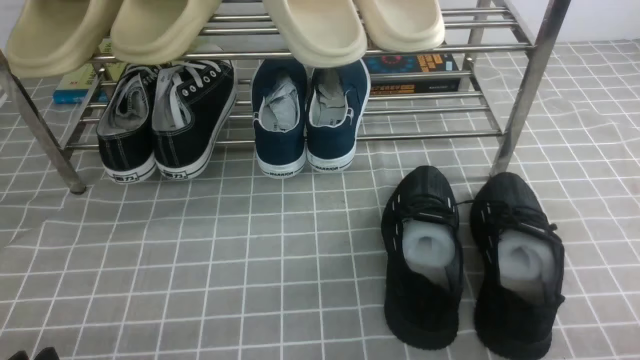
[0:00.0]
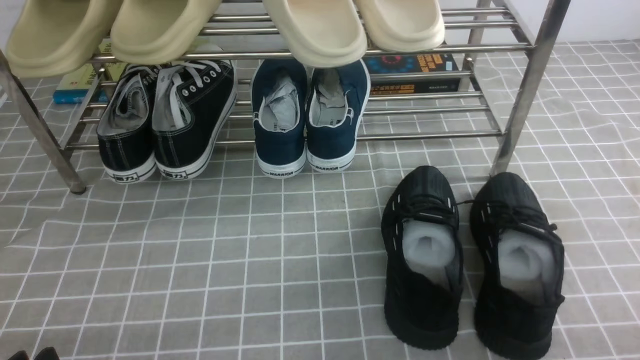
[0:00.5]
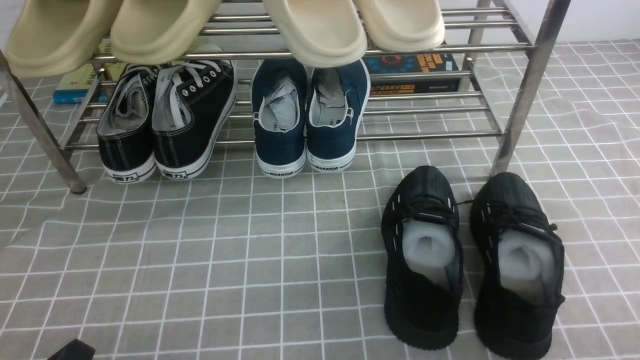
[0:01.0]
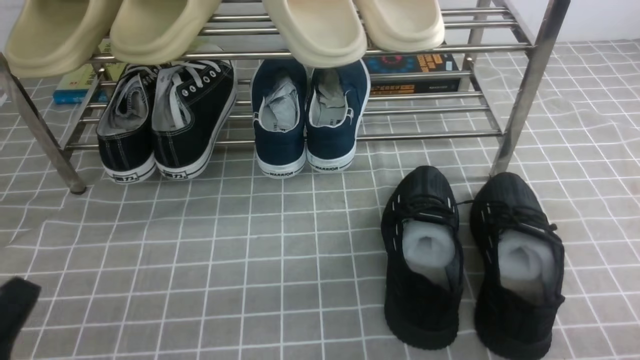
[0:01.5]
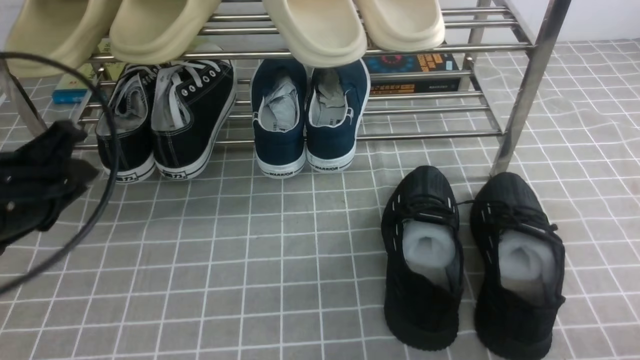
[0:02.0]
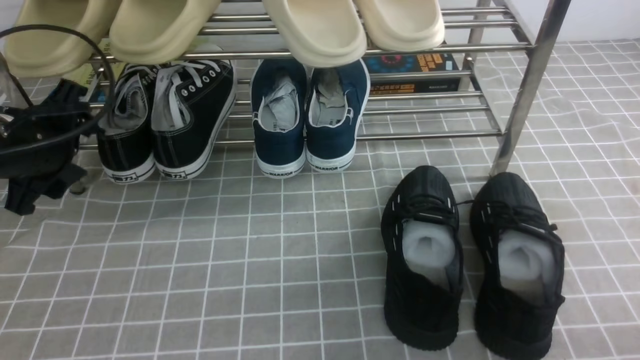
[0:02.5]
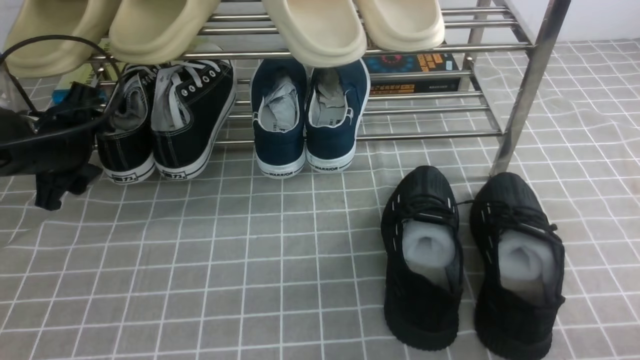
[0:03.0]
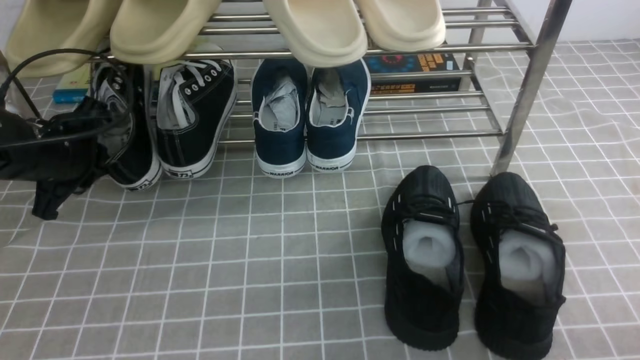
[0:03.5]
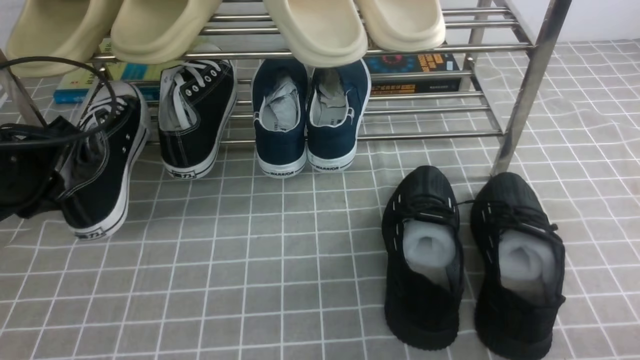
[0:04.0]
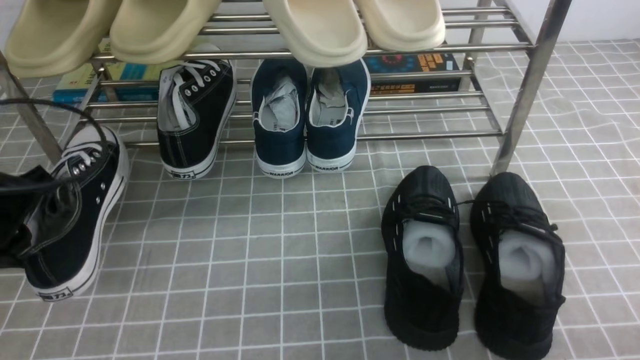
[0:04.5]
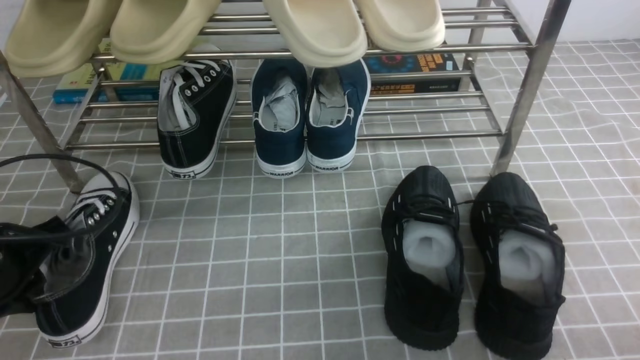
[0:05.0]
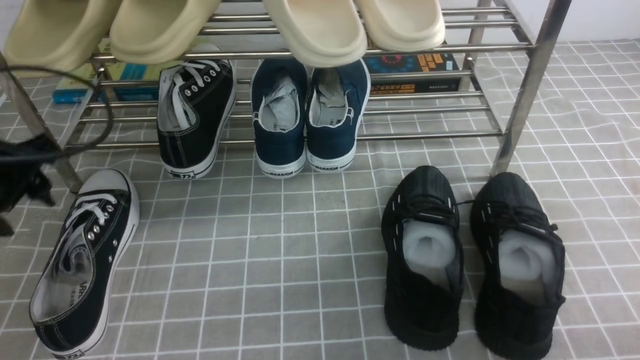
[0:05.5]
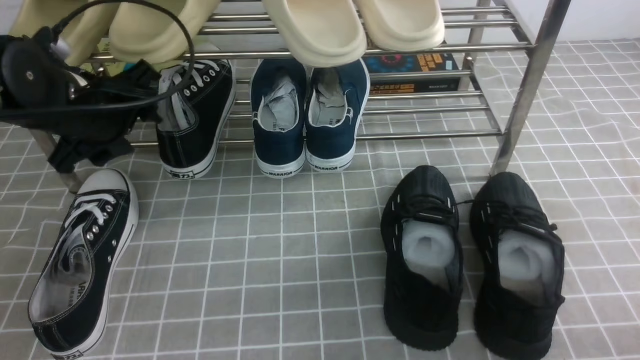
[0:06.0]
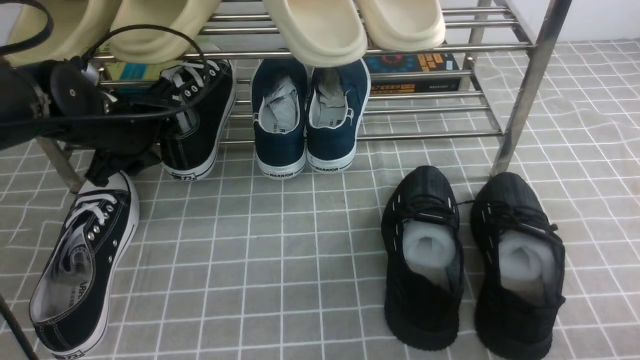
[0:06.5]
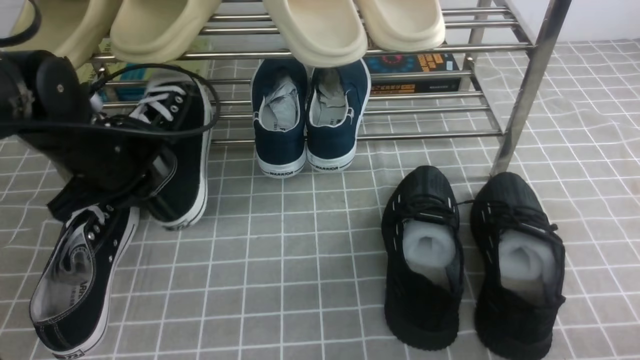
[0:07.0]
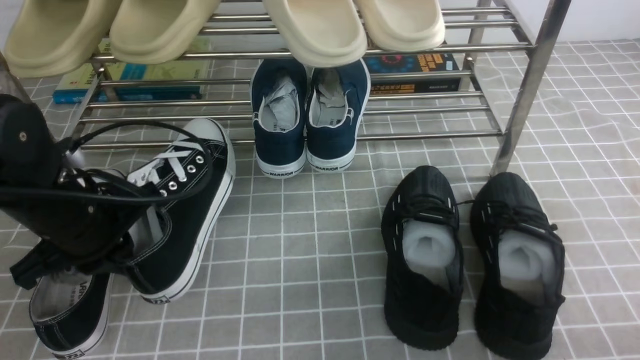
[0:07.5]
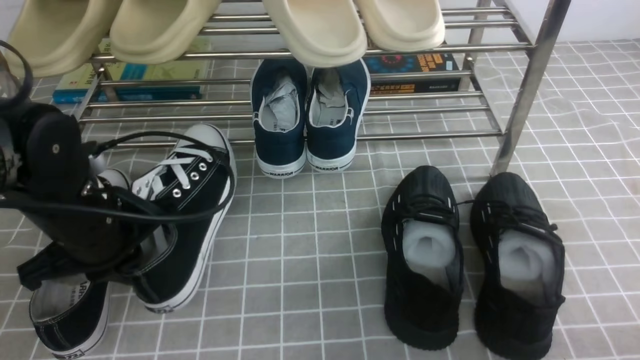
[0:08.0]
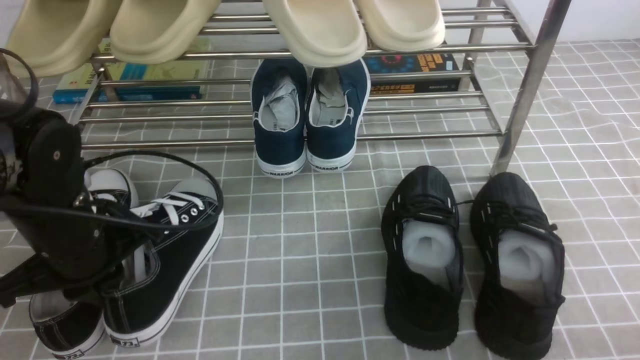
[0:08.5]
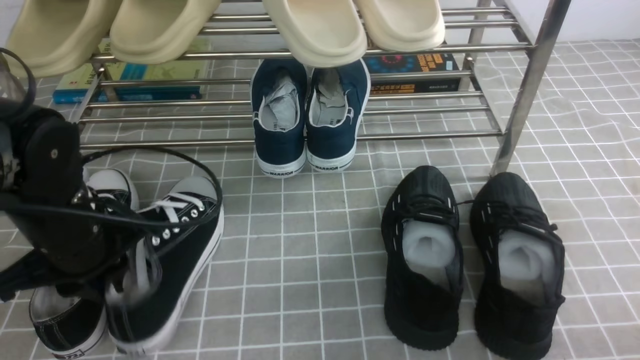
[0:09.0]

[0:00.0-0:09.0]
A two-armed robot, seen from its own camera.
Step, 0:00.0 to 0:03.5: use the left arm to clamp a shoe on the left side of the shoe rack.
Step, 0:04.0 to 0:05.0: Use your left arm to remove the clamped shoe from the shoe rack and put it down.
Step, 0:05.5 to 0:06.5: use the left arm to clamp a shoe on the left side of the shoe rack.
0:00.0 to 0:02.0: The left gripper heads forward and upward, covering about 20 cm.
0:02.0 to 0:04.5: The left gripper travels forward and back again, some 15 cm each way, and closes its fingers.
0:04.5 to 0:07.0: The left gripper moves forward and to the right, roughly 10 cm, and opens, then closes again.
0:07.0 to 0:09.0: The left gripper goes approximately 5 cm backward.

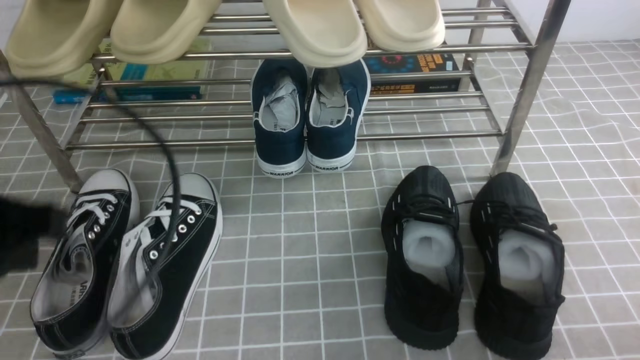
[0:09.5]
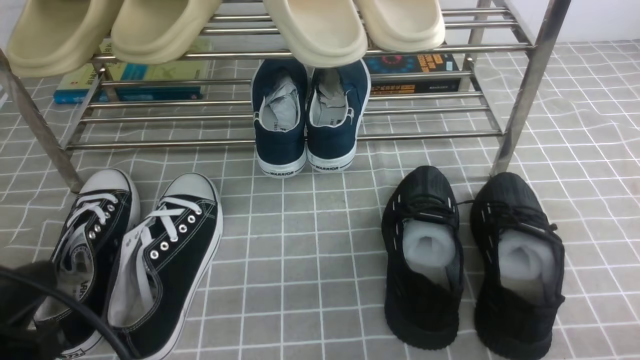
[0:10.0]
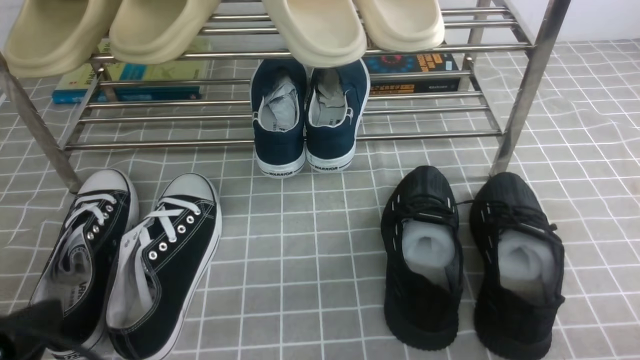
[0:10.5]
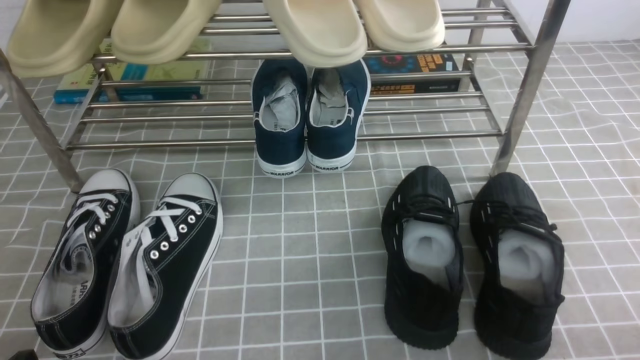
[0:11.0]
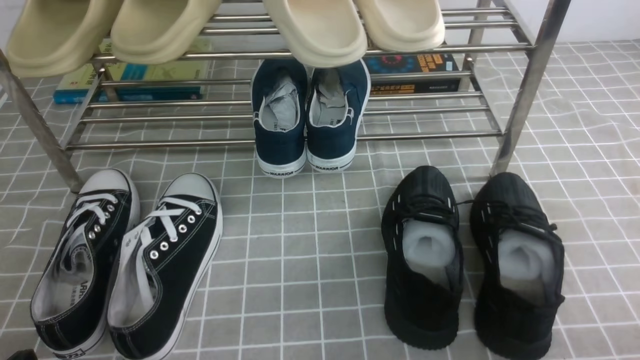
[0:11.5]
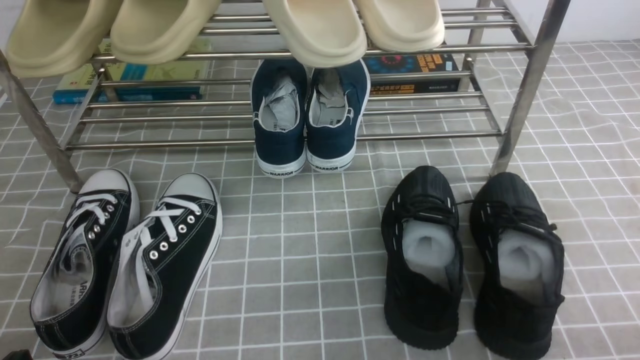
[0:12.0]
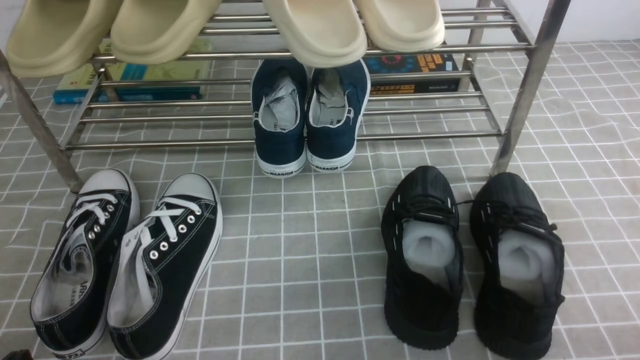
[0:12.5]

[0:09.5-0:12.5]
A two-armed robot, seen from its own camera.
0:09.5 to 0:11.0: The left gripper travels downward and backward by approximately 20 cm.
0:11.0 to 0:12.5: Both grippers stay put.

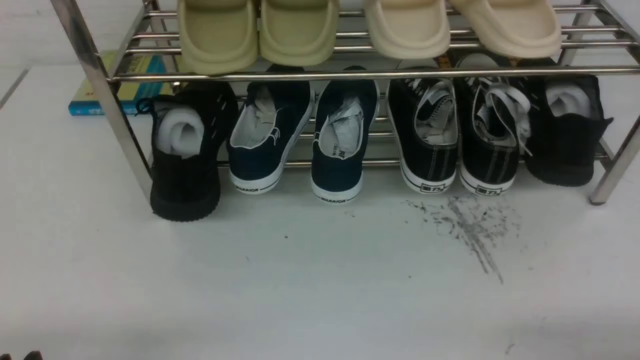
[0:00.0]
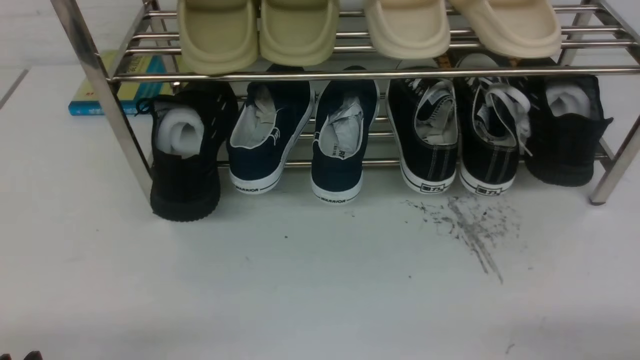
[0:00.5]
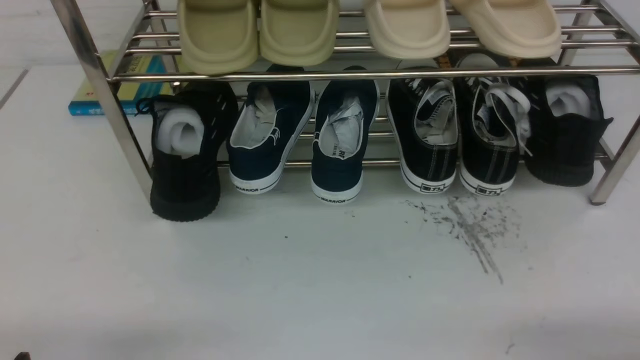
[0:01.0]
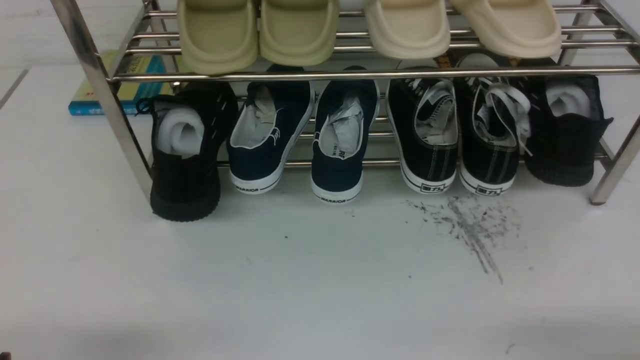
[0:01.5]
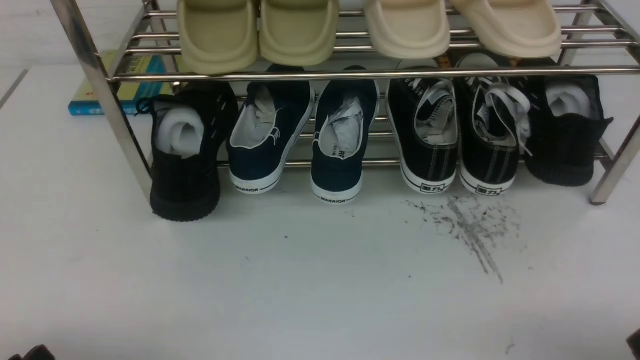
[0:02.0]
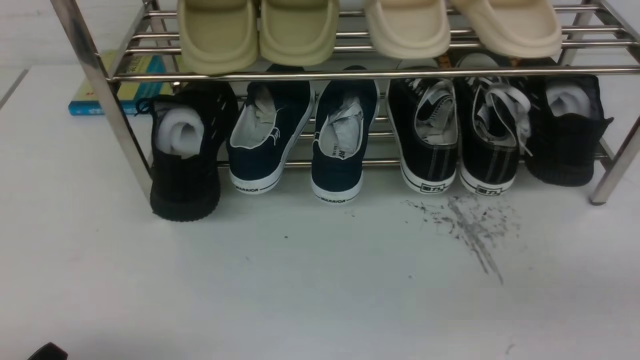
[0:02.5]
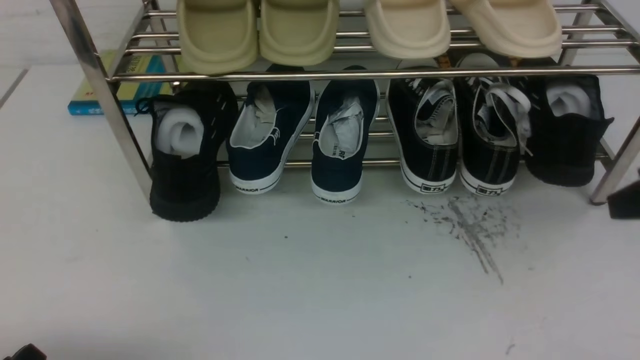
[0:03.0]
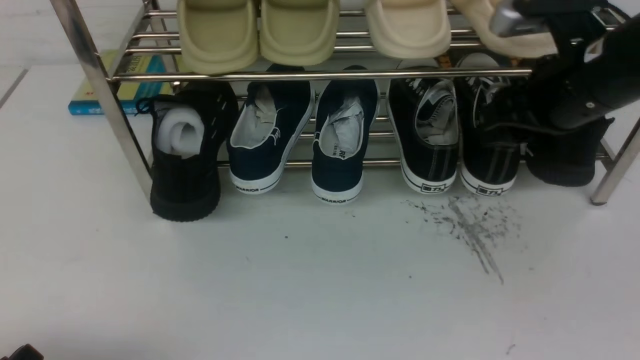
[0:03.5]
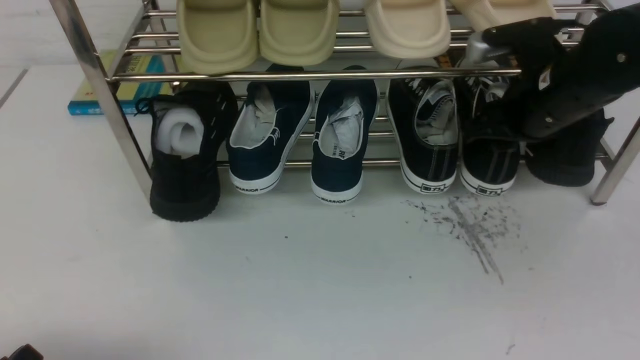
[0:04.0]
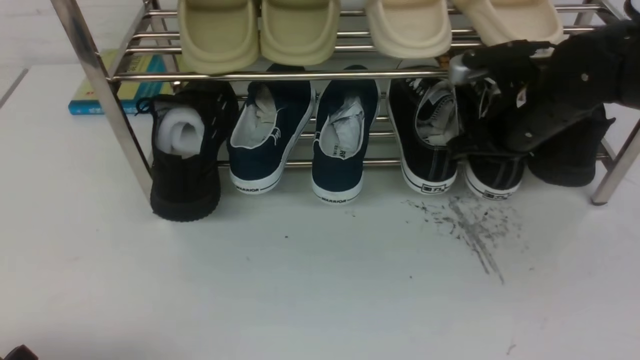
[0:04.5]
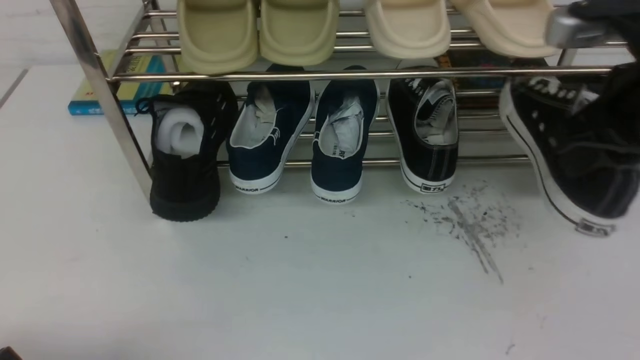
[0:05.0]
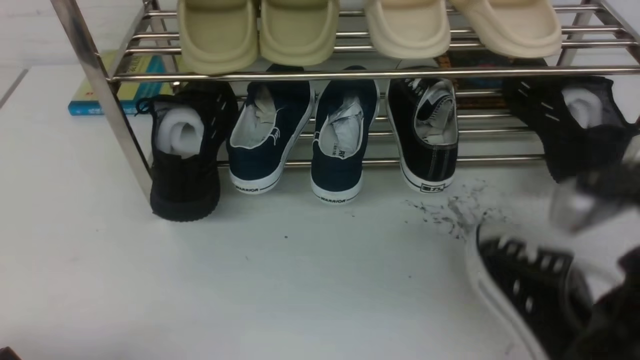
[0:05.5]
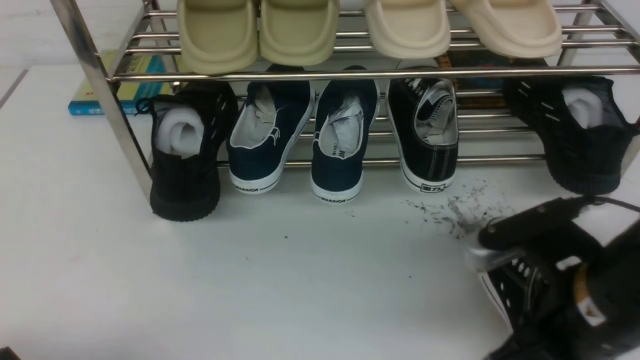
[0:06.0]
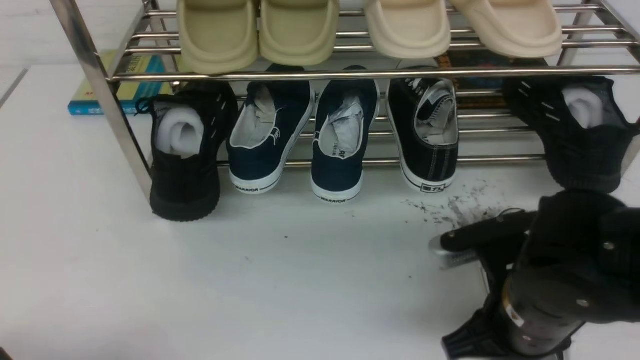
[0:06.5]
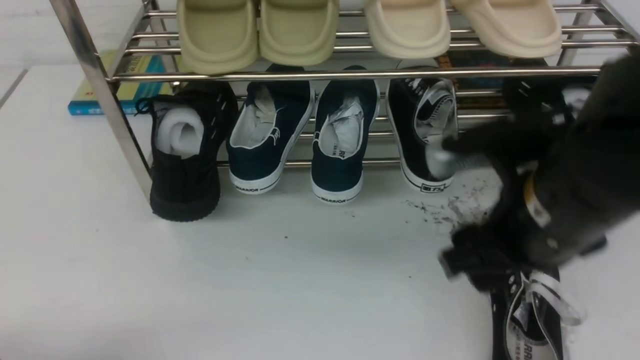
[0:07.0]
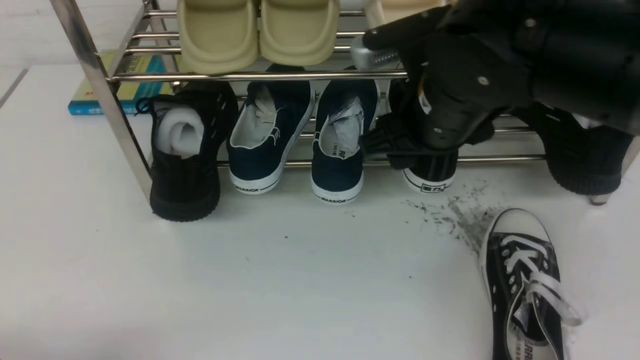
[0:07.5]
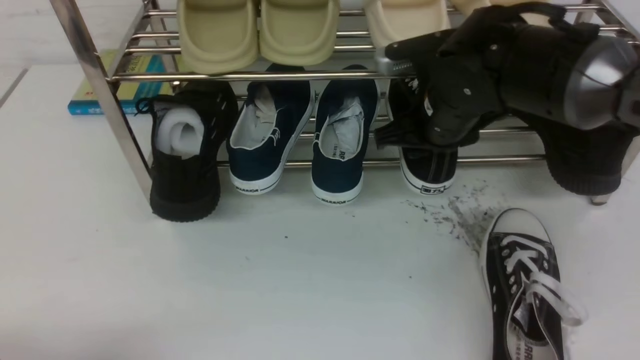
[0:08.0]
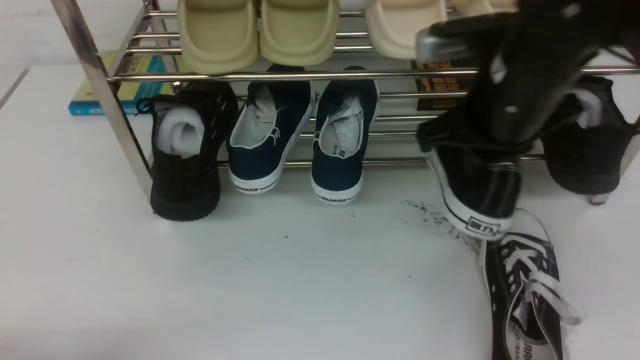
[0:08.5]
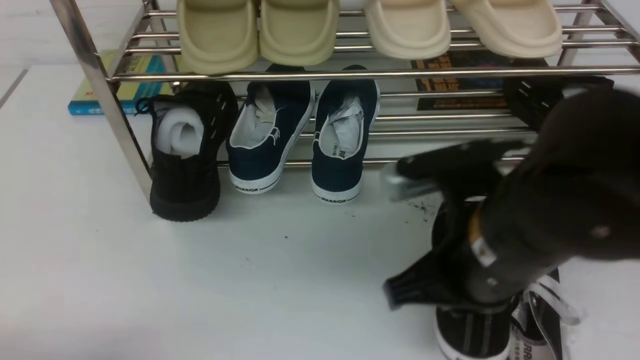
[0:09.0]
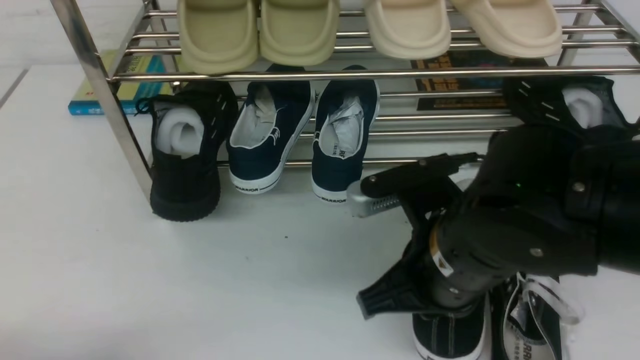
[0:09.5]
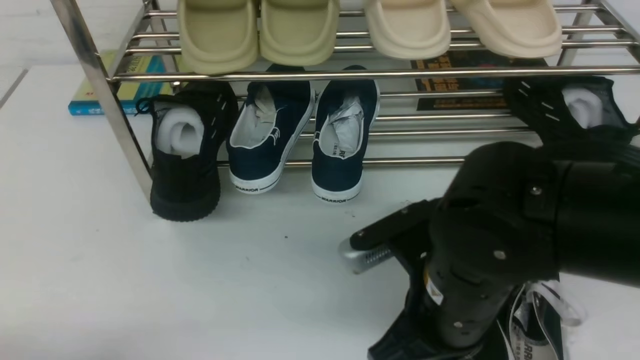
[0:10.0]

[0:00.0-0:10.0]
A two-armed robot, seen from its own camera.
Step, 0:00.0 to 0:04.5: use the right arm to clamp a shoe on the right side of the shoe rack.
Step, 0:05.0 to 0:06.5: use the right arm to take out the clamped shoe from the shoe rack and put it down.
Step, 0:07.5 to 0:08.5: use the right arm to clamp a shoe in the middle of the shoe rack.
0:02.0 to 0:04.0: The right gripper heads forward, covering some 30 cm, and closes, then reopens.
0:04.0 to 0:06.0: The right gripper travels backward by some 20 cm, and closes its fingers.
0:06.0 to 0:08.0: The right gripper shifts about 20 cm forward, and opens its fingers.
0:08.0 to 0:10.0: The right gripper heads backward, covering about 20 cm, and closes its fingers.
